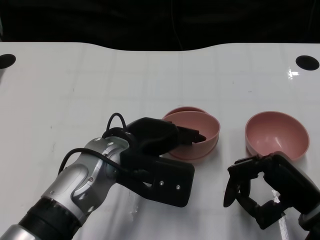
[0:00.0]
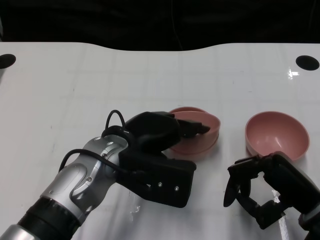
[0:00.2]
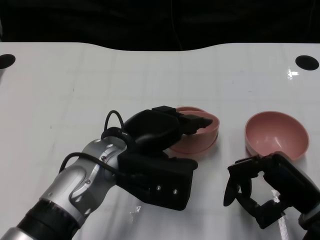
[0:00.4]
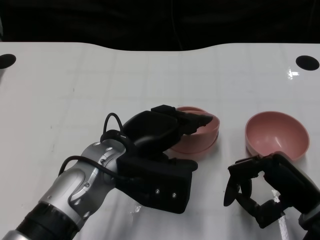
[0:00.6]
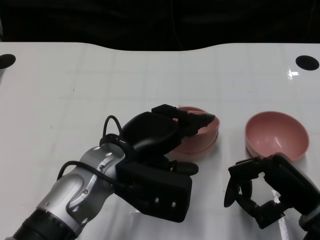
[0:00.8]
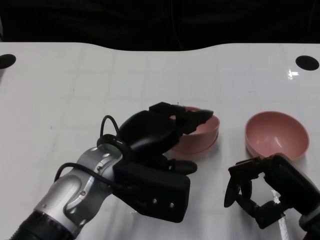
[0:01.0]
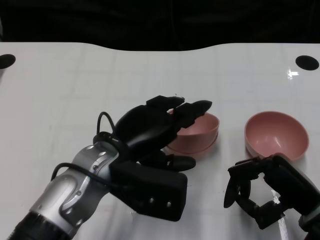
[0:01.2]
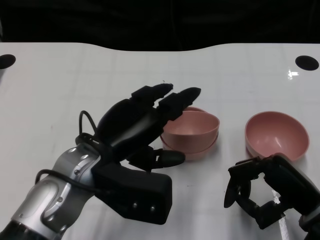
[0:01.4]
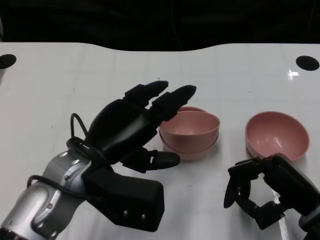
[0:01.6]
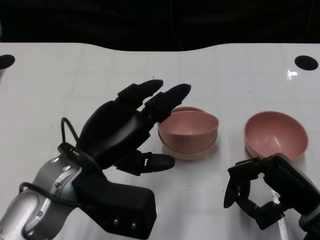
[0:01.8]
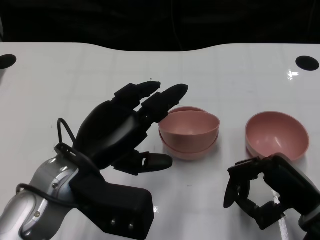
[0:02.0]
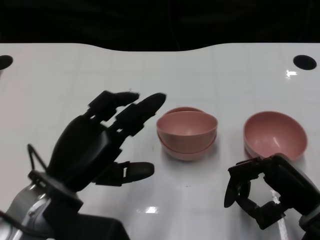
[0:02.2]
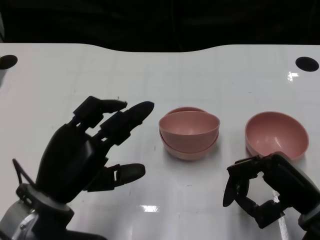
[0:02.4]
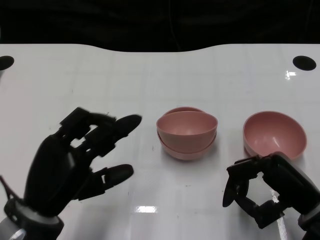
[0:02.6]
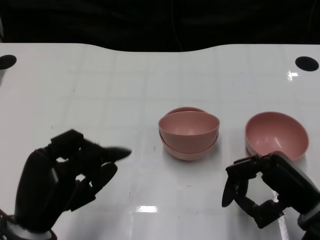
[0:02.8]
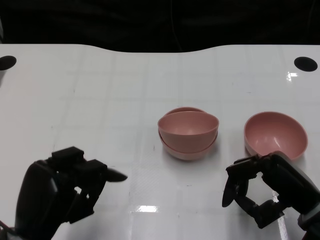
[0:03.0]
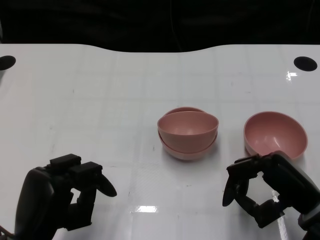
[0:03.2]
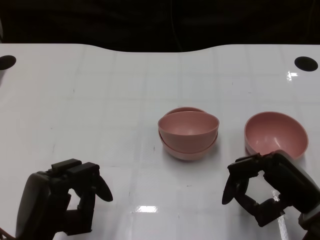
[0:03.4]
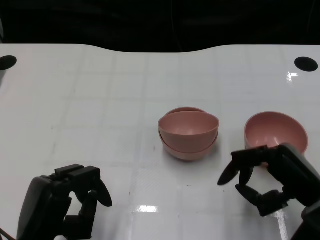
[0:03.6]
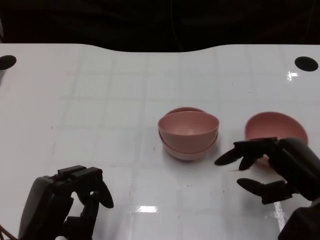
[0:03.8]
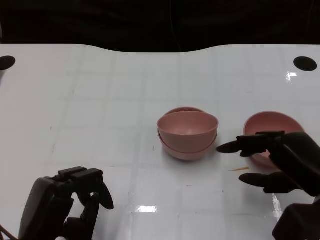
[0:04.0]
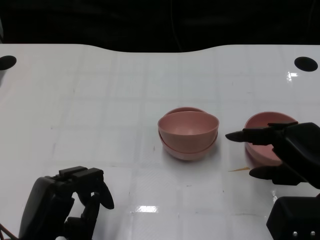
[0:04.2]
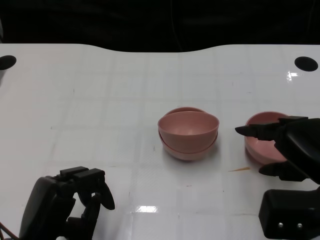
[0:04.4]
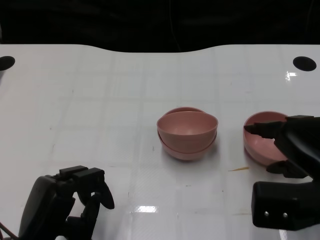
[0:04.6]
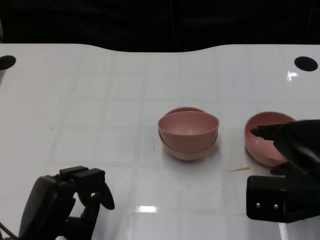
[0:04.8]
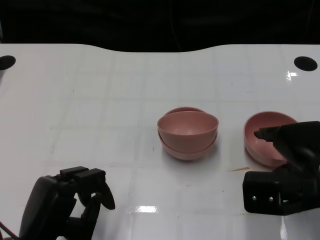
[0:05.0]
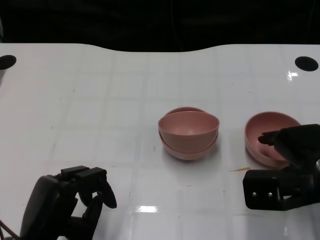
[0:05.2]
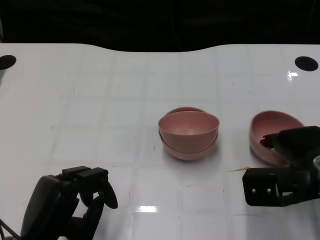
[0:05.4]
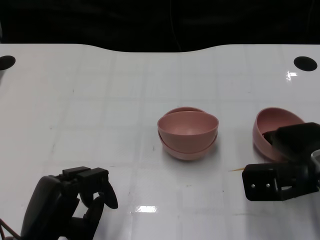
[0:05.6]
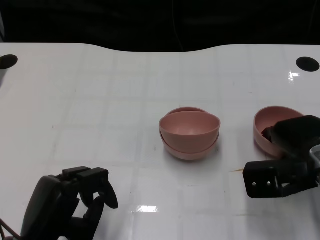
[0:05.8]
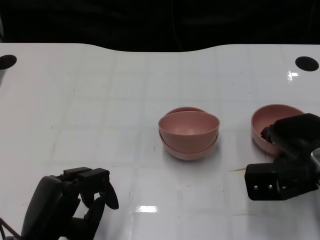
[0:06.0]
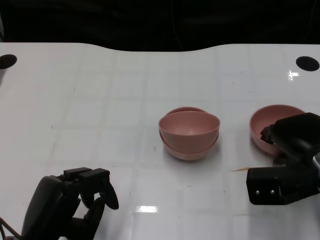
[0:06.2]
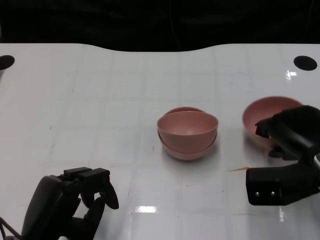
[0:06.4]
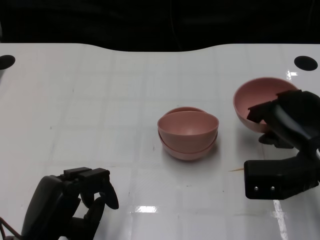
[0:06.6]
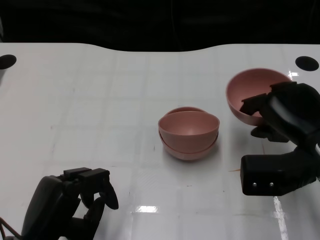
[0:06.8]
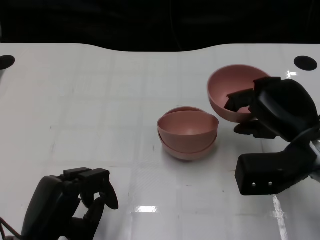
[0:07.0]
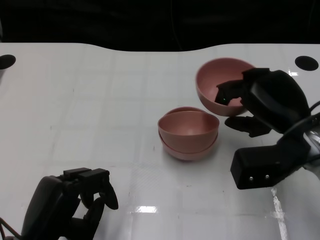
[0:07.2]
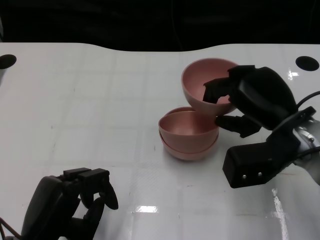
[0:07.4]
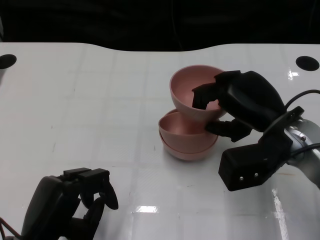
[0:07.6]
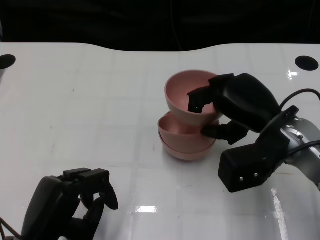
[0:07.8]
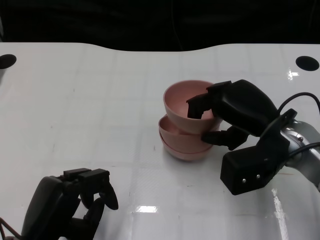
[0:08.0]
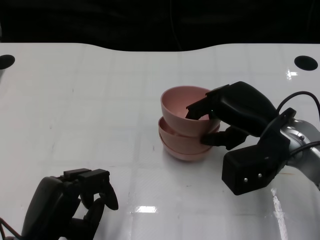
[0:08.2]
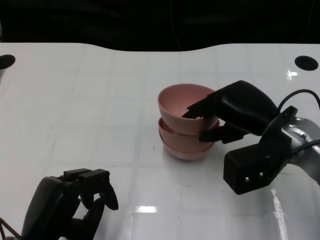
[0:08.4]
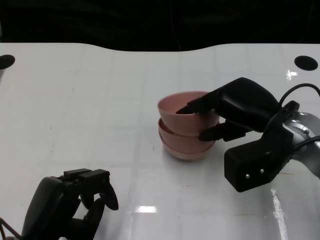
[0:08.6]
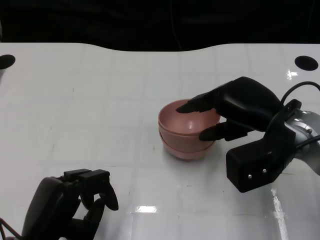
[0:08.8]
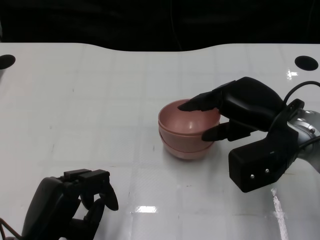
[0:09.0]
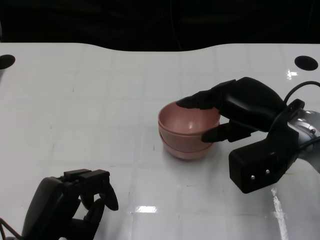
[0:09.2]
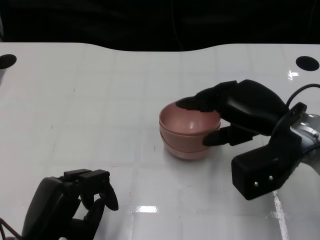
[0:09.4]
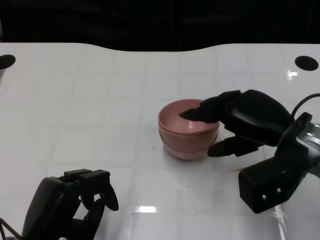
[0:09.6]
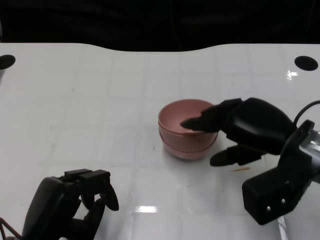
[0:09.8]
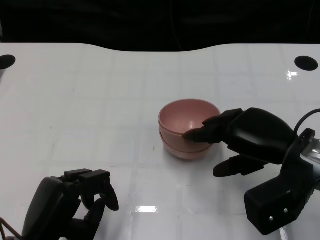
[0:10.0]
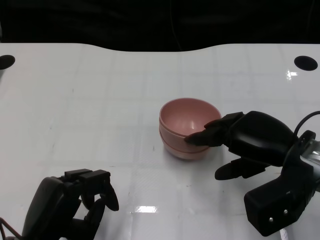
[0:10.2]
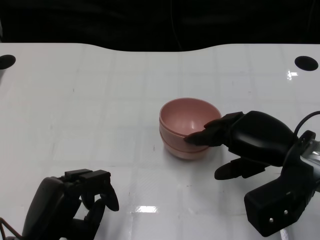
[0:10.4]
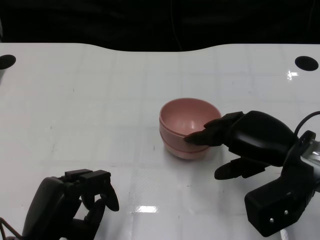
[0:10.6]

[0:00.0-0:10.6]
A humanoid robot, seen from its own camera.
Task of the whole recording: Pick up the bowl on one side of the table and place it on top of the middle bowl, then pick up the bowl on the other side of the table and place it on top of the middle bowls.
Step, 0:01.6 to 0:06.2: Grasp the bowl on the right with the right gripper.
0:00.0 to 0:01.6: The left hand changes place by approximately 5 cm.
0:01.6 to 0:03.0: The left hand moves downward, backward and to the left, approximately 15 cm.
0:03.0 to 0:04.6: The right hand travels upward by approximately 5 cm.
0:04.6 to 0:06.0: The right hand is displaced forward by some 5 cm.
0:06.0 to 0:07.6: The right hand is displaced to the left by about 5 cm.
0:07.6 to 0:09.0: The hands move only a little.
0:09.0 to 0:10.6: The hands stay close to where they were, moving slightly.

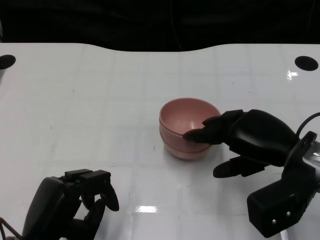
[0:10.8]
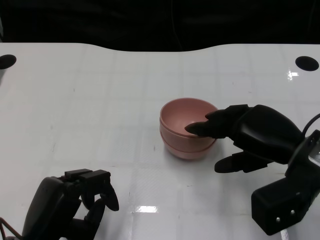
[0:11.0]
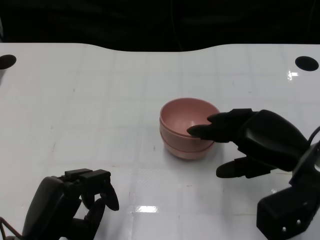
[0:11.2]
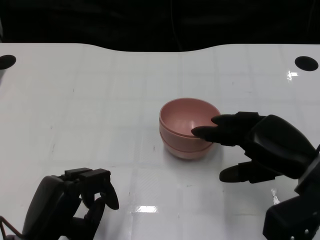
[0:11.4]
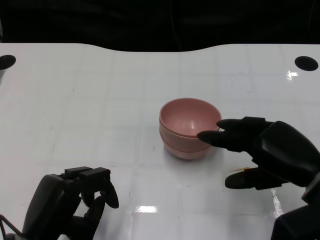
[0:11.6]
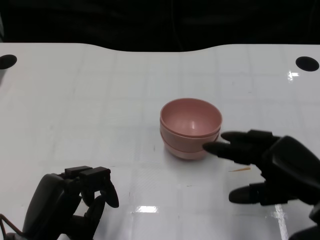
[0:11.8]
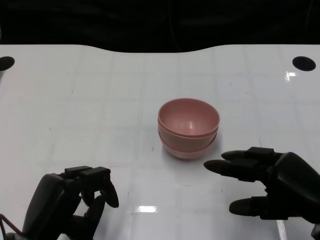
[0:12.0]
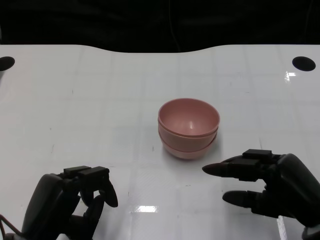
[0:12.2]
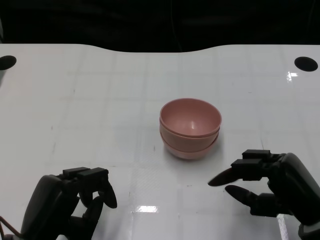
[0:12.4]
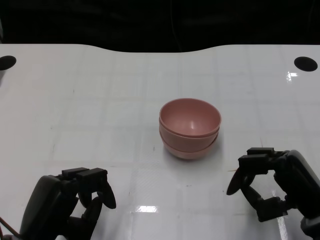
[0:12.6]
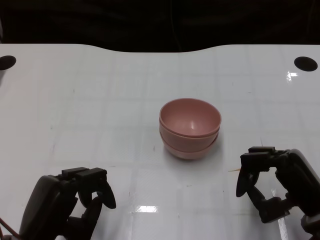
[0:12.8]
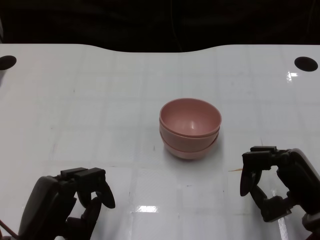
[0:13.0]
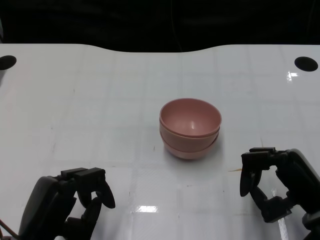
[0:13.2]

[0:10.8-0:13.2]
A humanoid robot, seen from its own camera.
Task of the whole recording: Pick up the bowl on one side of the table and place it on top of the middle bowl, then pick up the bowl on the other side of the table and place it on top of the middle bowls.
0:10.8 to 0:12.0: The right hand moves backward, approximately 5 cm.
